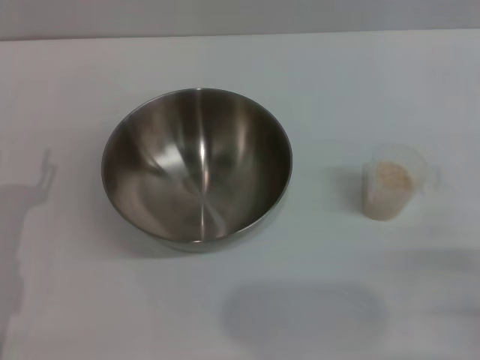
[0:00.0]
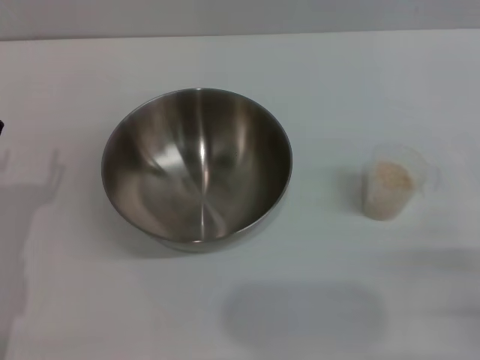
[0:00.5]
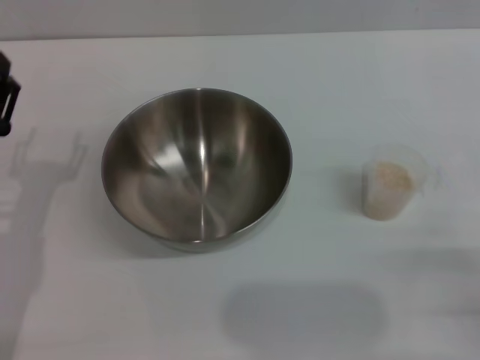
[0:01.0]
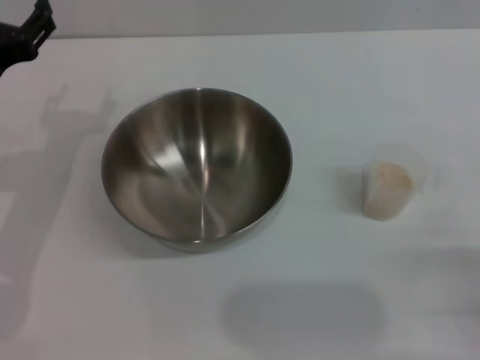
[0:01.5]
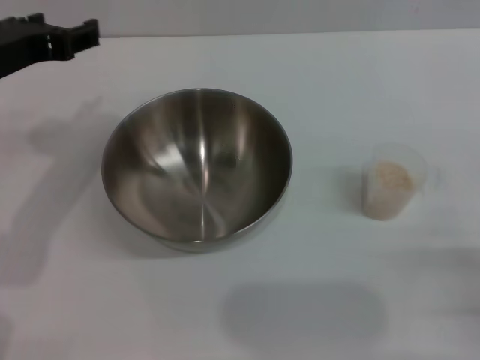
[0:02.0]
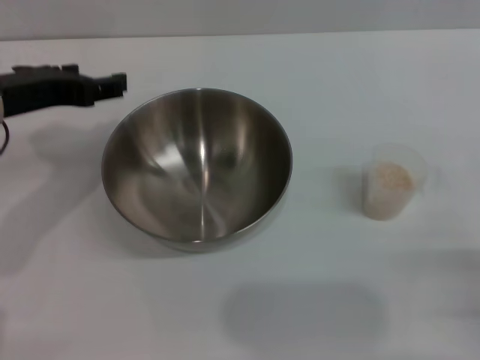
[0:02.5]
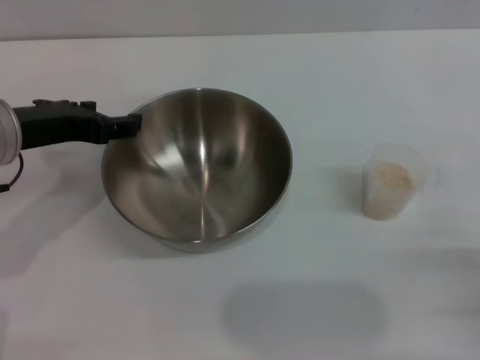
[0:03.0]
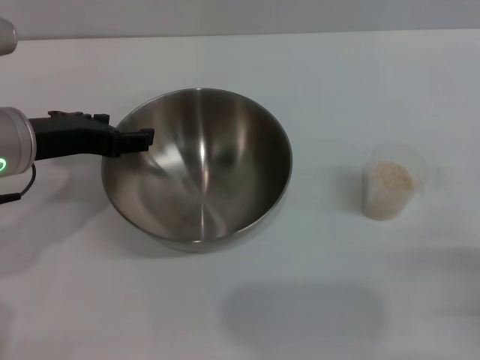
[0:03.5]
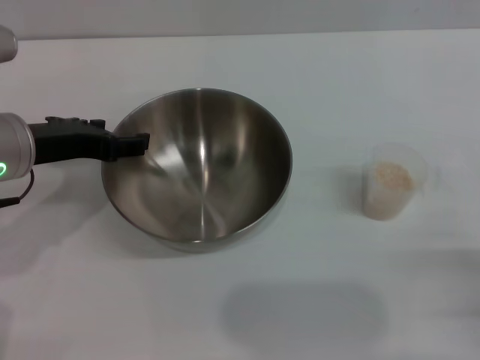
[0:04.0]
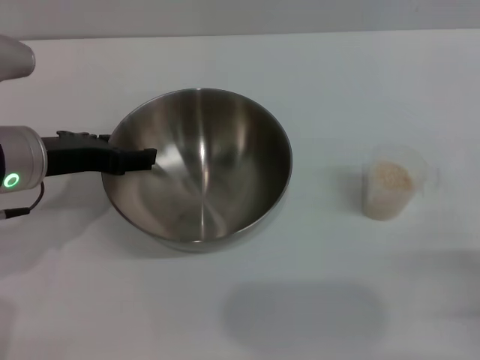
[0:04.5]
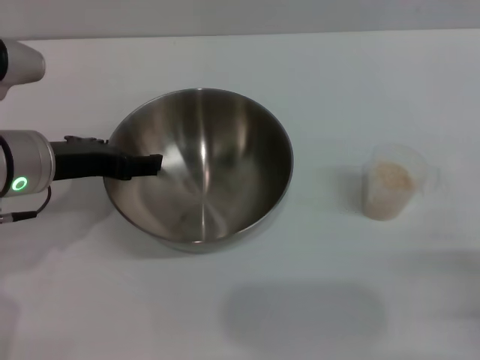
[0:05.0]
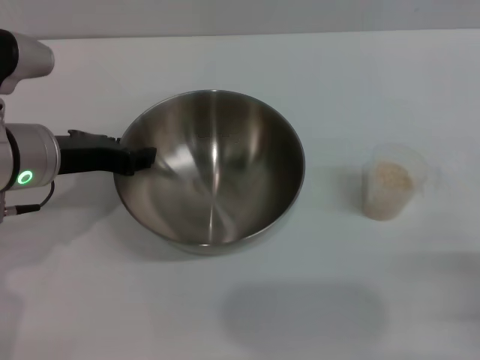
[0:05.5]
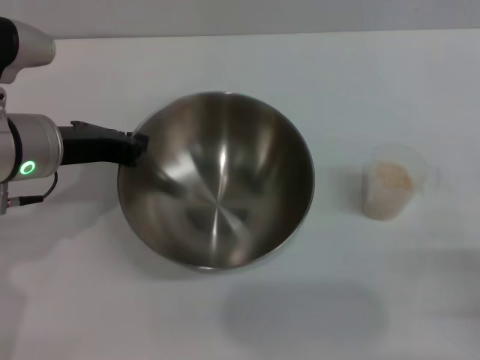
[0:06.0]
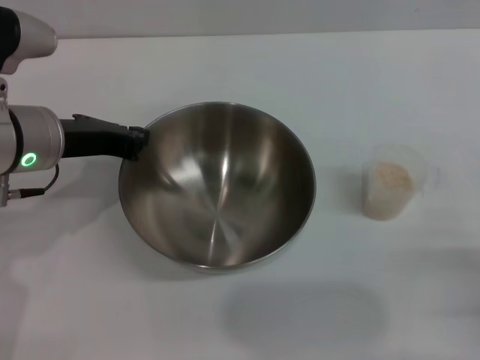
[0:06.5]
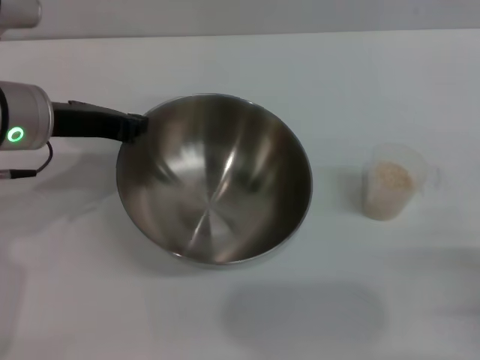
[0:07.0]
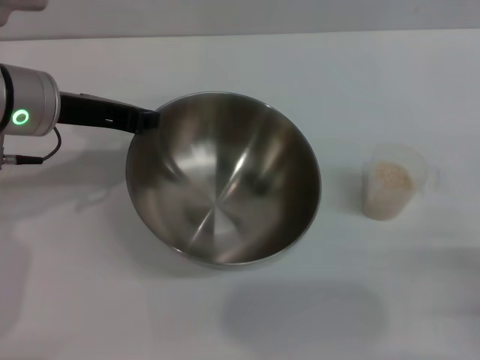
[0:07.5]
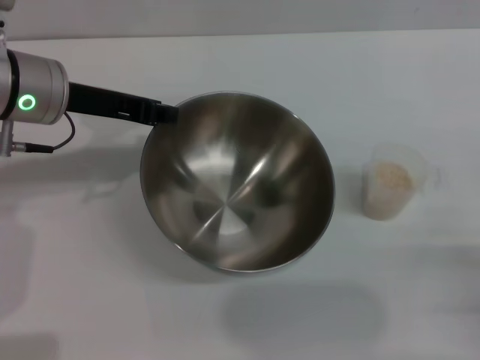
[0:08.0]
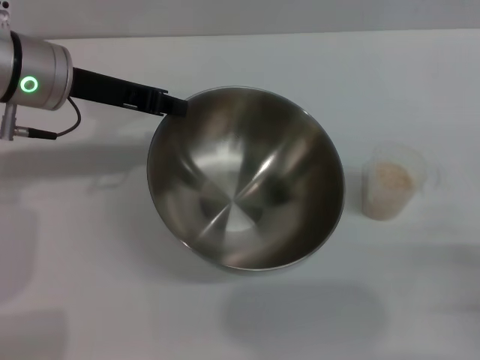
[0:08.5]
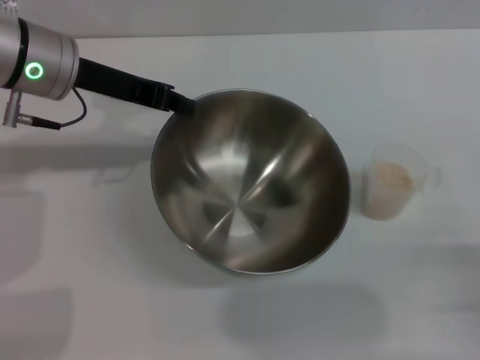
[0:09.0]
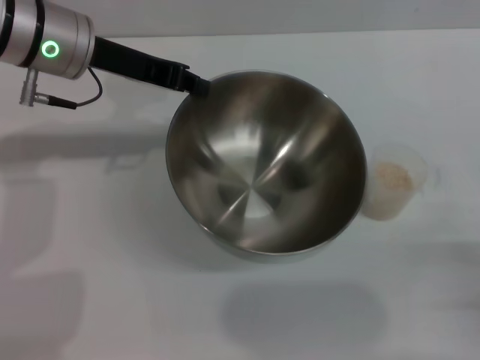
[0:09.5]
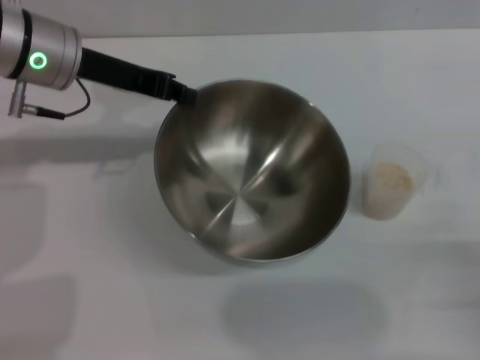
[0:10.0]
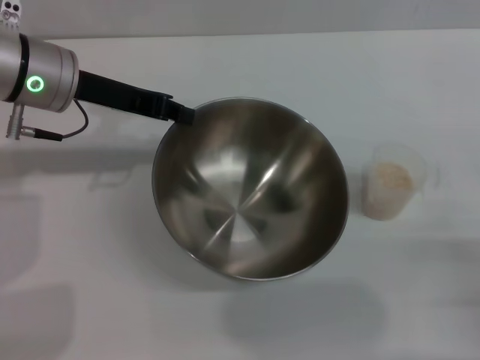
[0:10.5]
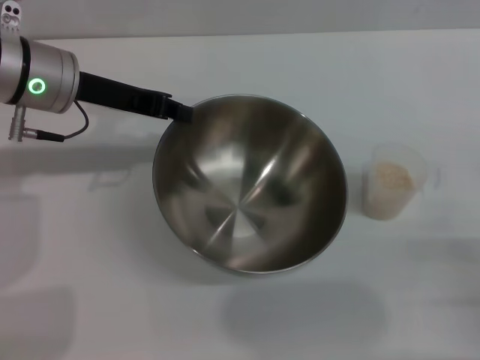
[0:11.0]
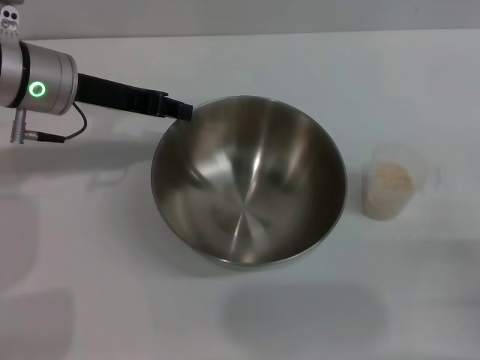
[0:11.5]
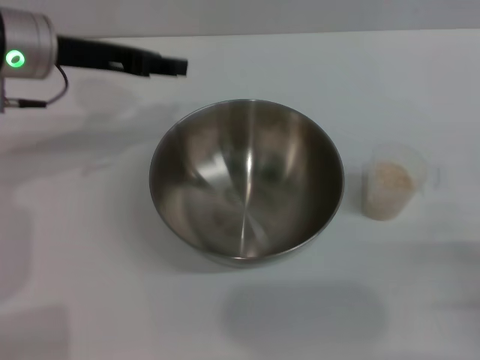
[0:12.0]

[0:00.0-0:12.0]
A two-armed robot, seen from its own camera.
Task of the whole recording: Place the bowl in the middle of the table with one hand and pour the rice from the grain cup into it with the other hand.
Step, 0:00.0 to 0:08.0: Pick up the bowl with the left gripper.
Step, 0:08.5 to 0:12.0: Place the bowl in the center of view with the left gripper.
0:00.0 to 0:02.0: The left gripper heads upward and forward, covering approximately 20 cm.
0:02.0 to 0:04.0: The left gripper moves downward, roughly 5 cm.
0:04.0 to 0:06.0: The left gripper closes its fingers.
0:06.0 to 0:08.0: The left gripper moves roughly 5 cm.
0:08.0 to 0:10.0: The grippers stay close to where they were, moving slightly.
0:10.0 to 0:12.0: The left gripper opens.

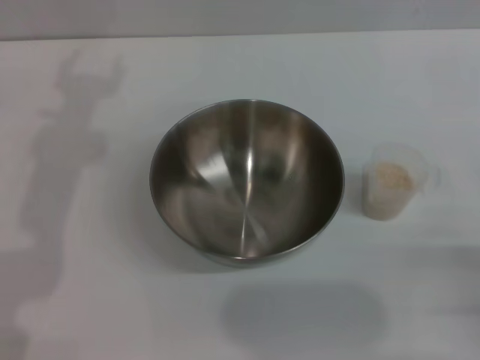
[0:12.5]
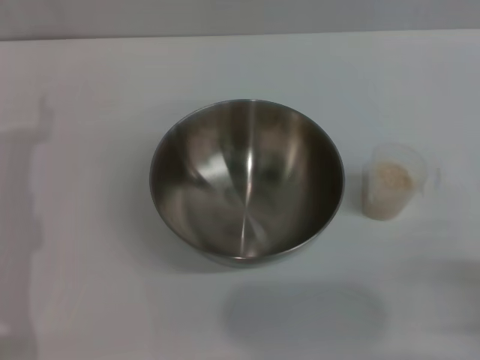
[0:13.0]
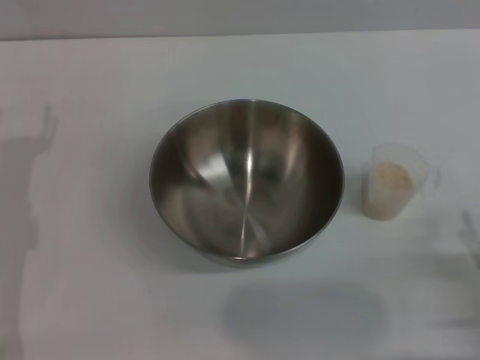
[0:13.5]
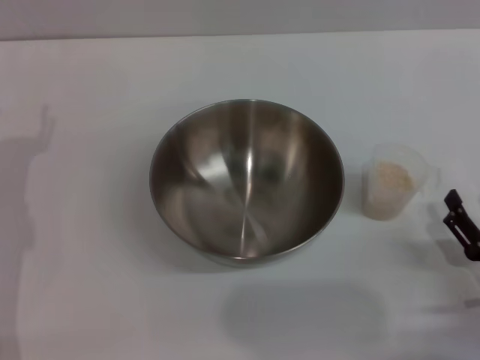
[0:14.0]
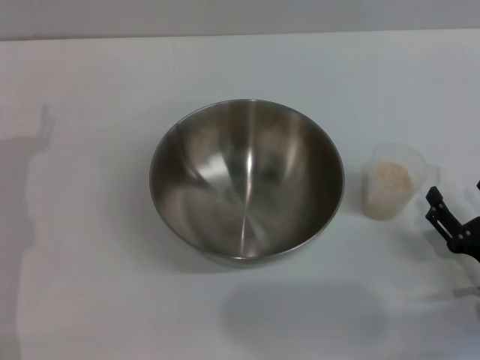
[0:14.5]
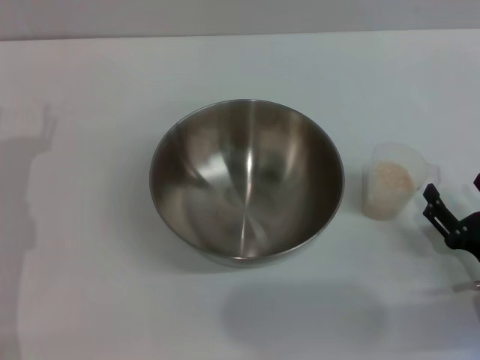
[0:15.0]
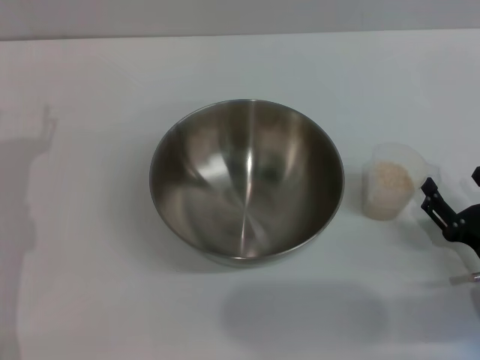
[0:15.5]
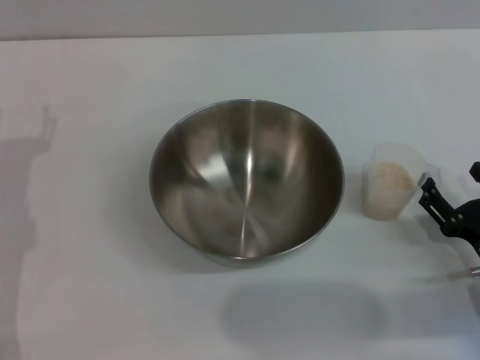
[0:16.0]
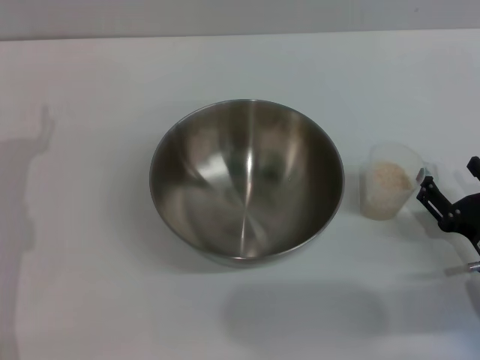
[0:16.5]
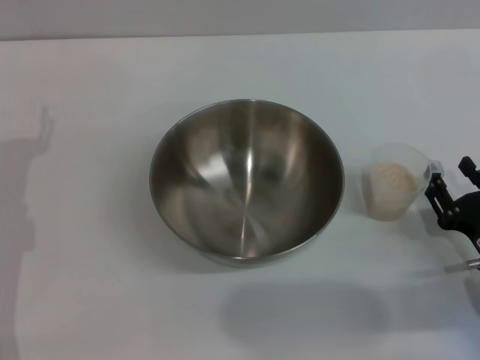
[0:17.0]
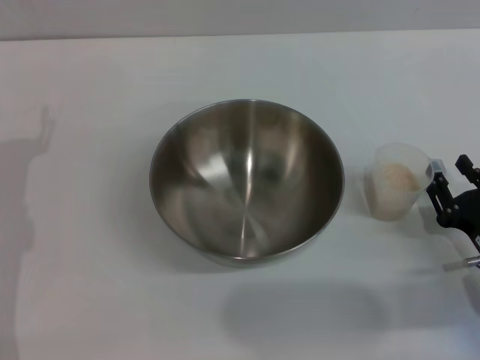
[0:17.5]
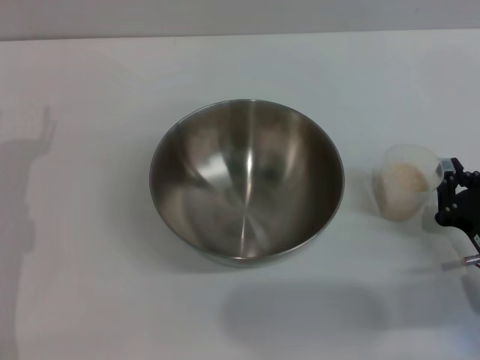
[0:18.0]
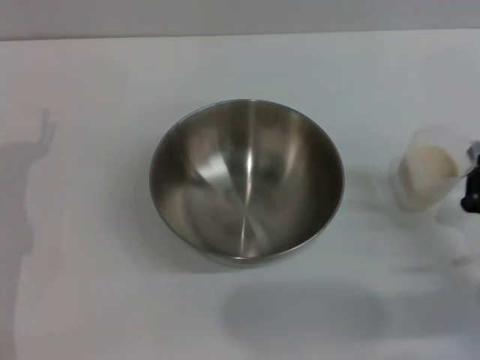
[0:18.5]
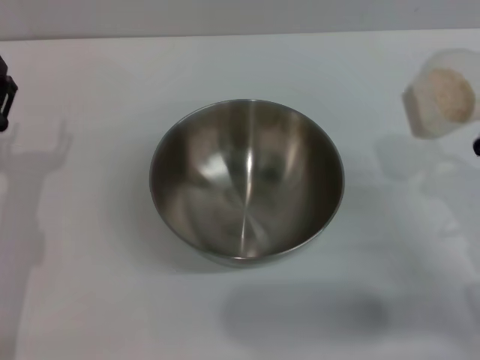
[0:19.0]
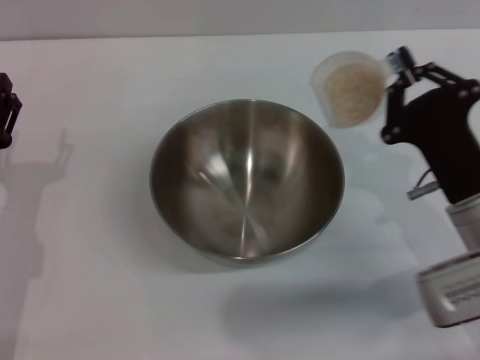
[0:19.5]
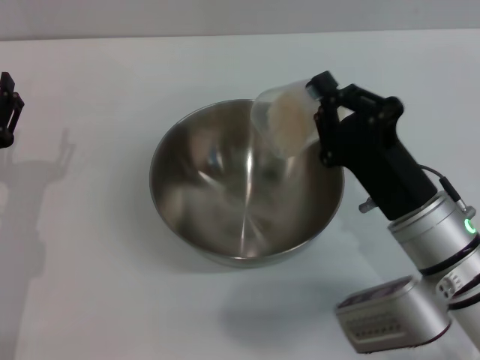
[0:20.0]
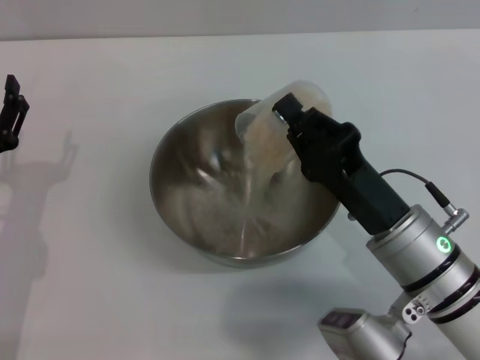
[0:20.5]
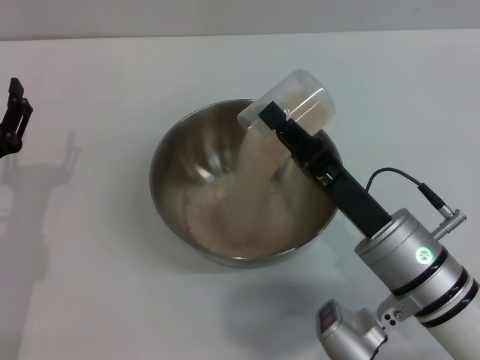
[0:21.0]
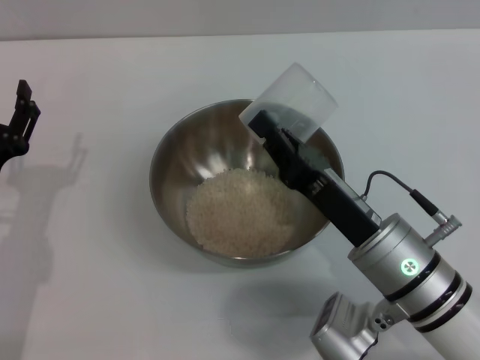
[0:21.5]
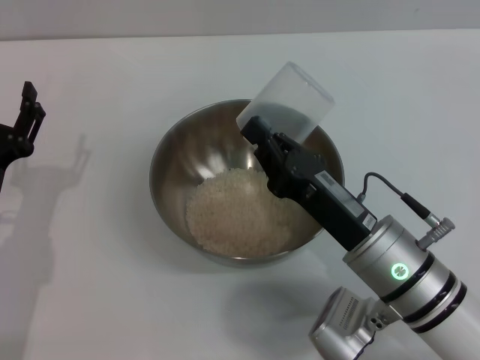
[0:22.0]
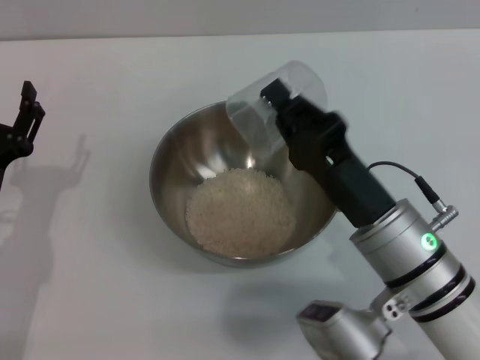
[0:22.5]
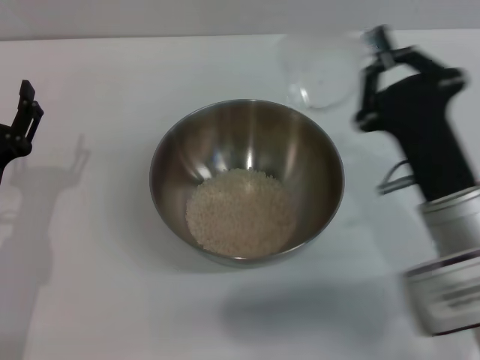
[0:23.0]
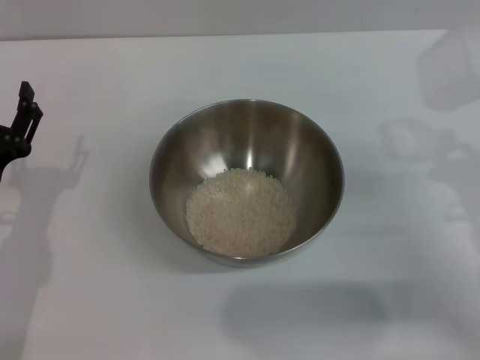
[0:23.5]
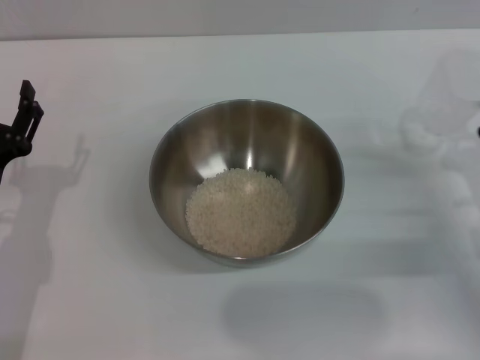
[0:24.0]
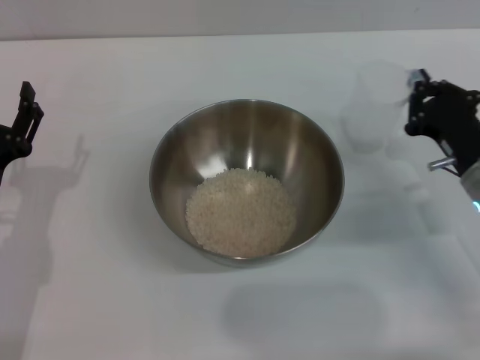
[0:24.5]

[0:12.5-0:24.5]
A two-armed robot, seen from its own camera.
Task of the whole recording: Place the bowl in the middle of the table with one hand and pour the rice from the grain cup into it with the other hand.
Step, 0:12.5 to 0:18.5: Pick up the cup with rice in it with the right gripper.
Step, 0:19.0 to 0:21.5: Pour the rice from the cup into the bowl with the right gripper.
0:12.5 to 0:14.5: The right gripper ends up some 10 cm from where it was.
0:14.5 to 0:16.5: There are only small adjustments of the grippers.
0:16.5 to 0:18.5: The right gripper closes its fingers.
0:18.5 to 0:20.5: The right gripper goes some 15 cm to the left.
0:22.5 to 0:24.5: The right gripper is displaced to the right and forward by roughly 15 cm.

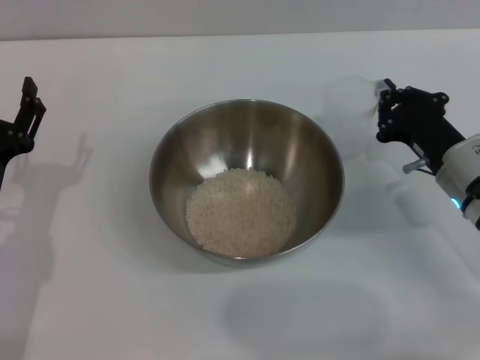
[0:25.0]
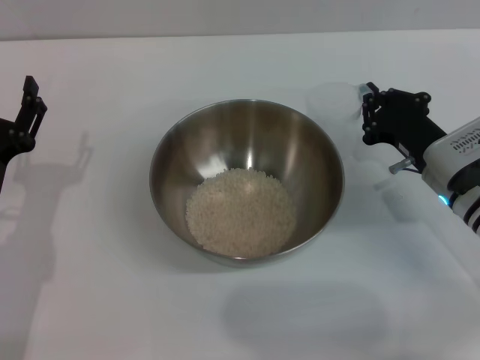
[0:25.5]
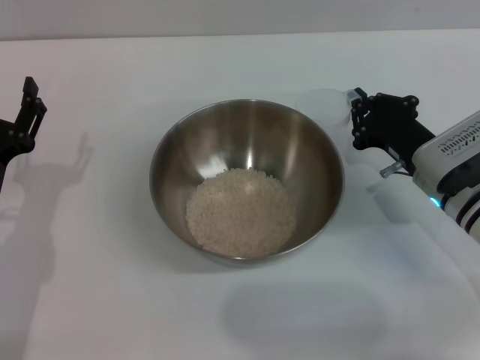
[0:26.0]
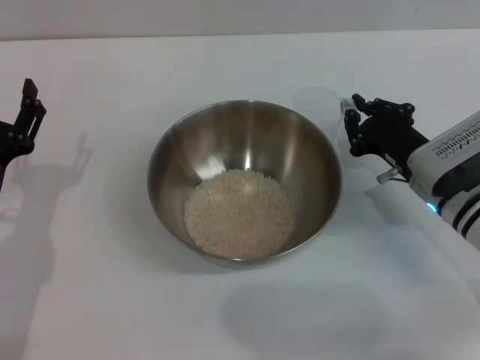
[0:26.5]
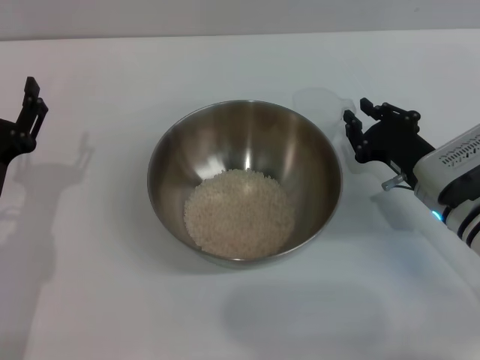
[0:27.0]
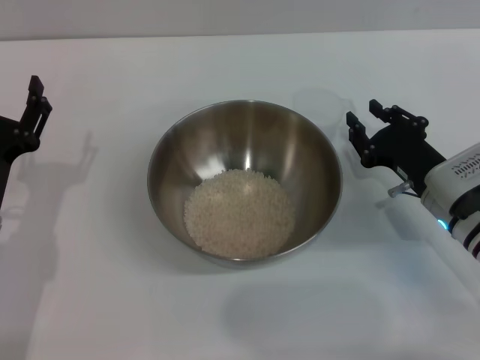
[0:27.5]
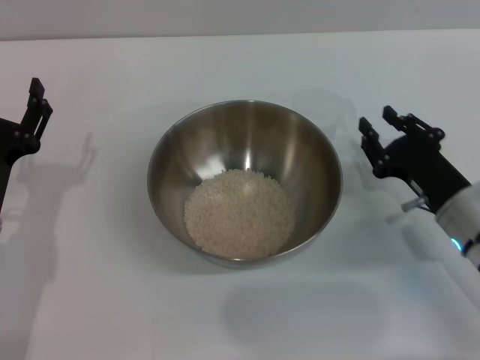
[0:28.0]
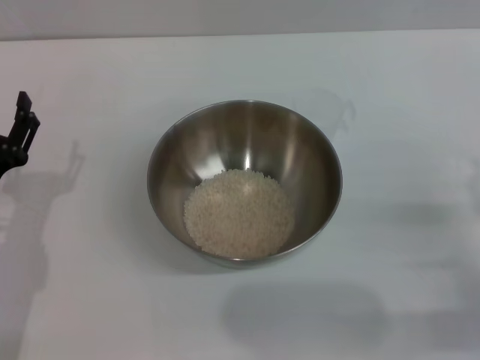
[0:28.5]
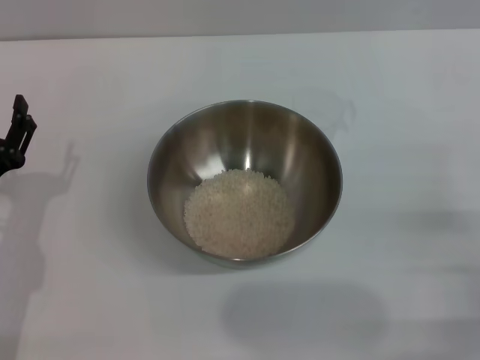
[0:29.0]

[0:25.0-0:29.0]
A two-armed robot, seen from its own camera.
Task of the whole recording: Place the bowl in the middle of the table with one hand and pour the rice from the grain cup into it with the other hand.
Step, 0:25.0 to 0:27.5: Place the cup on the table with the right gripper.
0:25.0 to 0:27.0: There are only small adjustments of the grippers.
0:27.0 to 0:29.0: The right gripper is displaced backward and to the right by about 15 cm, and opens.
